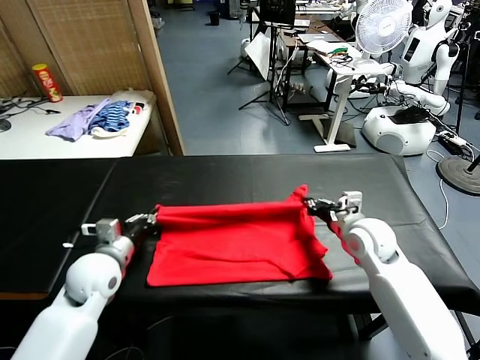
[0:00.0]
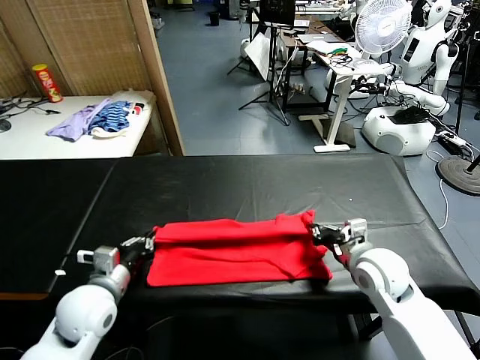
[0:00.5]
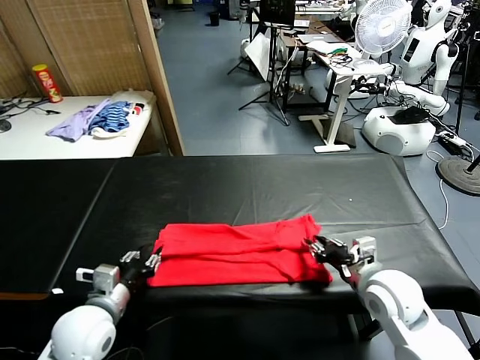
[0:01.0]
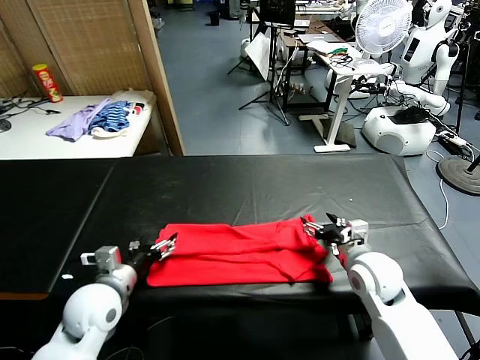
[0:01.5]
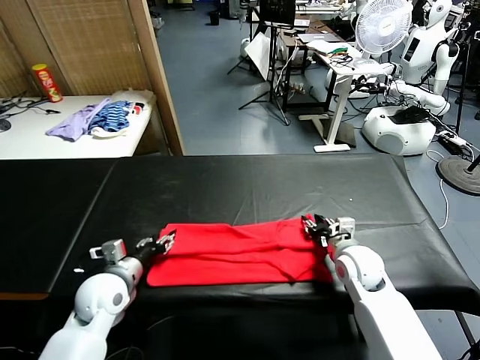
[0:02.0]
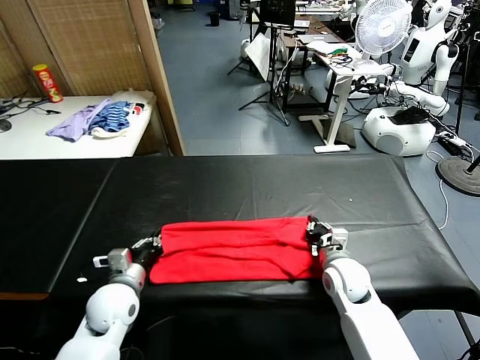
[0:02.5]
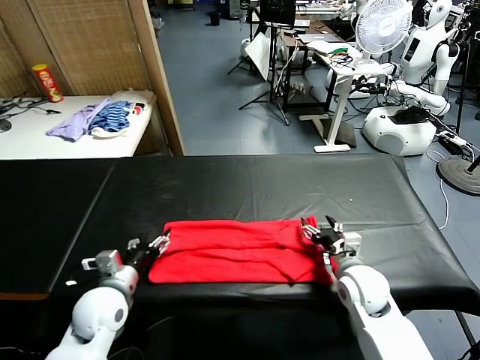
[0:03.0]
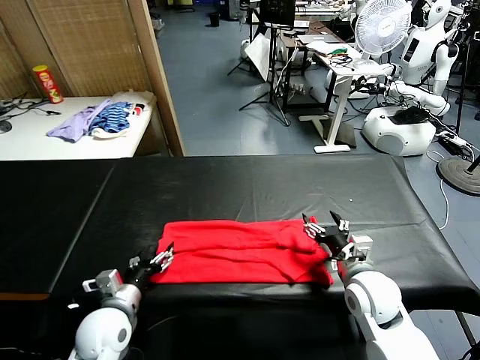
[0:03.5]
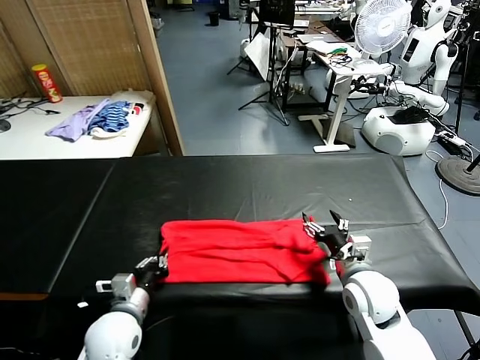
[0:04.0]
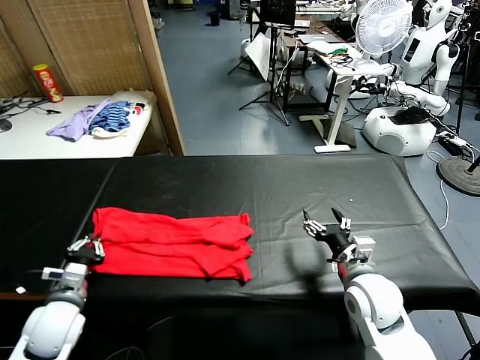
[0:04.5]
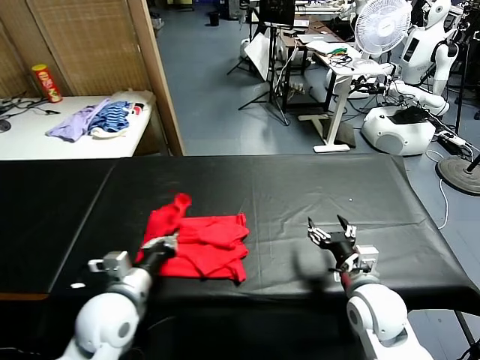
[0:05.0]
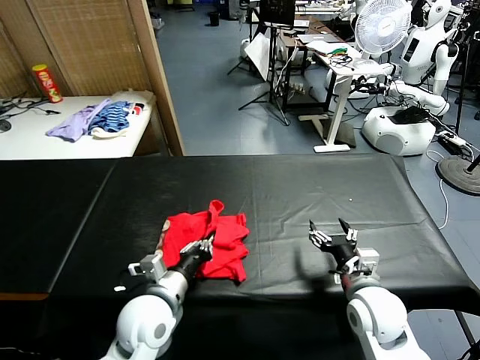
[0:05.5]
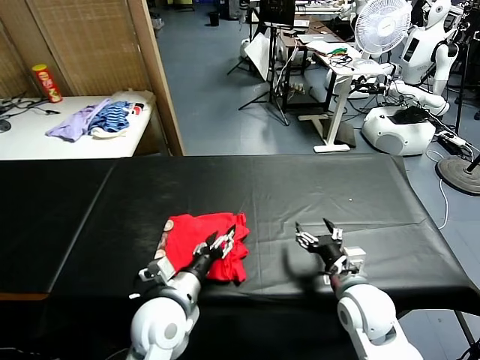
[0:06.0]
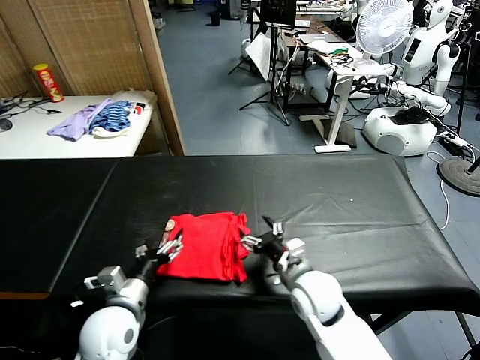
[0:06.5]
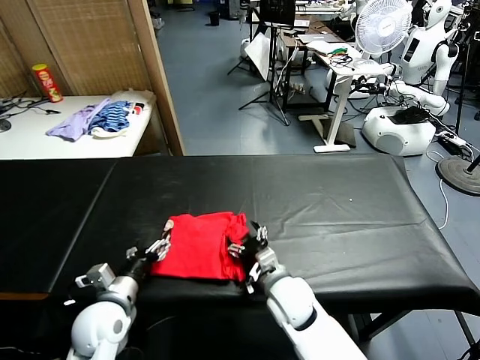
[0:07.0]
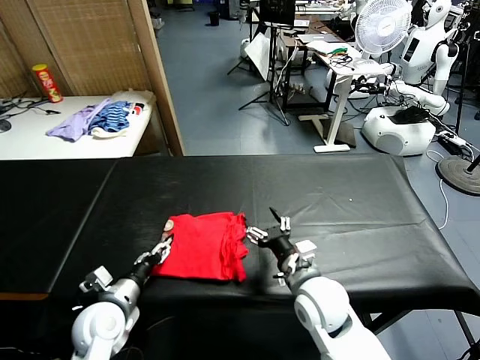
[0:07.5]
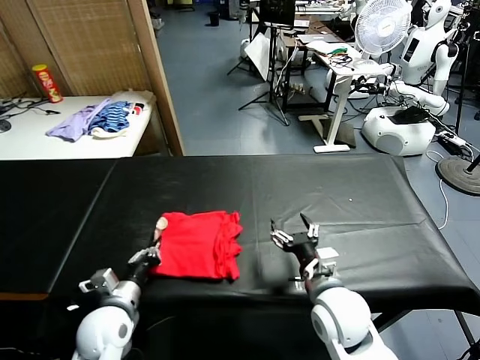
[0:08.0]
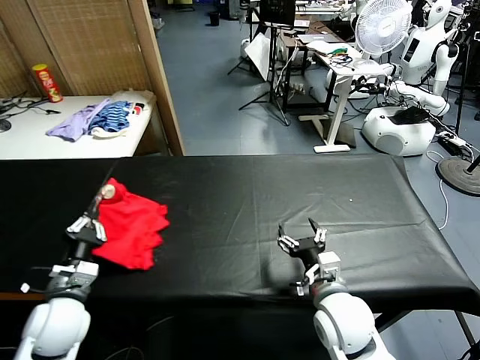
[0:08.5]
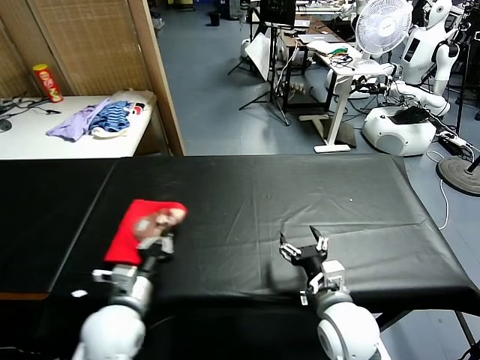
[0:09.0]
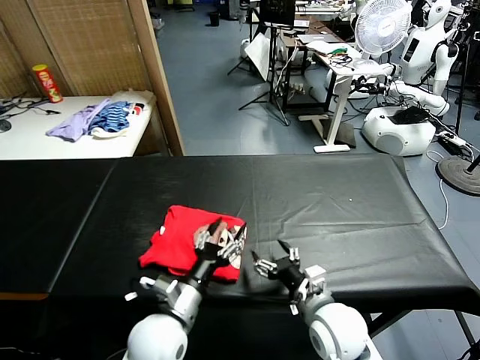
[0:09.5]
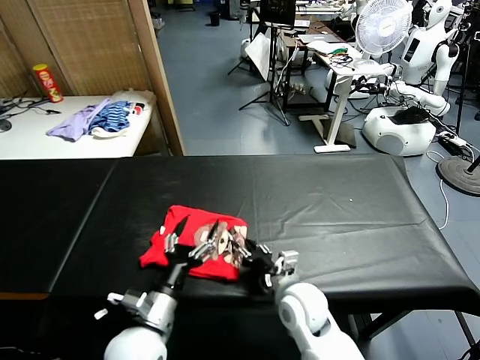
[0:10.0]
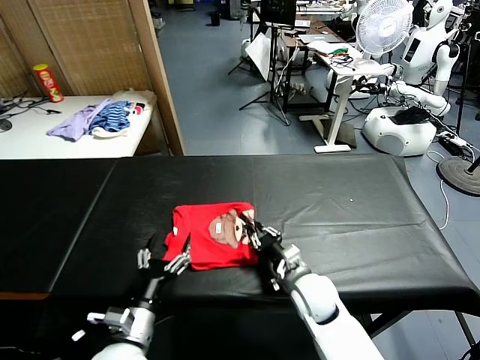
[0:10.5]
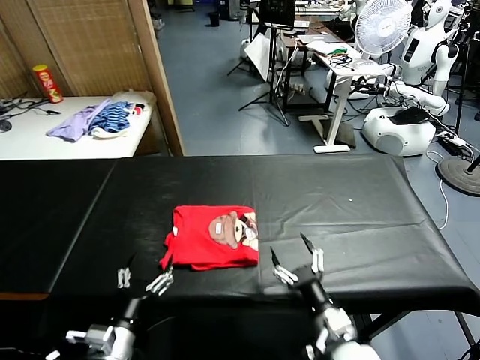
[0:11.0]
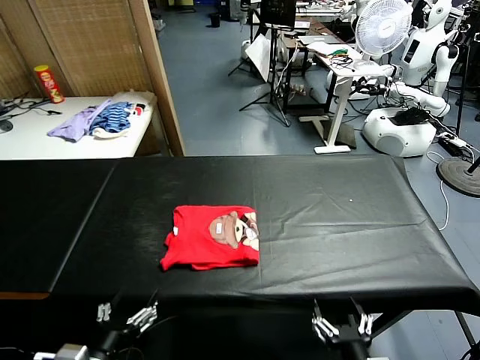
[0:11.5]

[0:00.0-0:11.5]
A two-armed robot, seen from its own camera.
Task of the whole recording: fold and organize the clothes.
Step, 0:00.0 to 0:01.0: use both grippers to drag the upper edge of the fabric backward and fold it over the lower edge.
Step, 0:01.5 to 0:03.5: use the left gripper to clamp the left edge of the fabric.
Step, 0:04.0 to 0:06.0: use the left gripper to drag the left edge of the fabric to the left and folds it over the right edge.
Step, 0:06.5 to 0:09.5: Flip the folded clothes over with left gripper.
Step, 0:10.0 to 0:10.5: Drag the clothes to the center of the table.
0:00.0 to 0:02.0: The left gripper goes backward and returns, some 10 cm each way, and opens; the right gripper shifts some 10 cm downward, moves about 10 cm backward and comes back, and opens and closes again.
0:02.0 to 0:04.0: The grippers both shift backward by roughly 5 cm. The right gripper opens its fingers. Meanwhile the left gripper closes its fingers.
0:04.0 to 0:06.0: The left gripper is displaced to the right and upward by about 10 cm, and opens its fingers.
0:06.0 to 0:07.5: The left gripper is displaced to the left by about 15 cm; the right gripper goes about 10 cm to the left.
0:07.5 to 0:09.5: The left gripper is displaced to the right by roughly 15 cm, and closes, then opens again, while the right gripper moves approximately 5 cm.
0:09.5 to 0:11.5: The left gripper is displaced backward and to the left by some 20 cm. Meanwhile the right gripper moves backward, about 15 cm, and closes, then opens again.

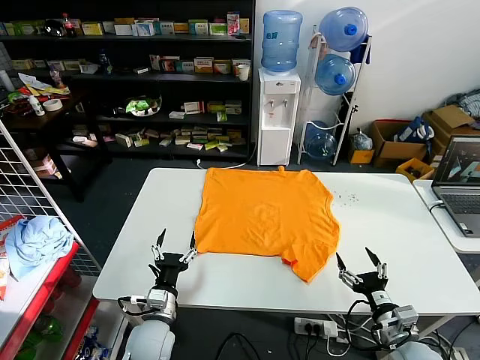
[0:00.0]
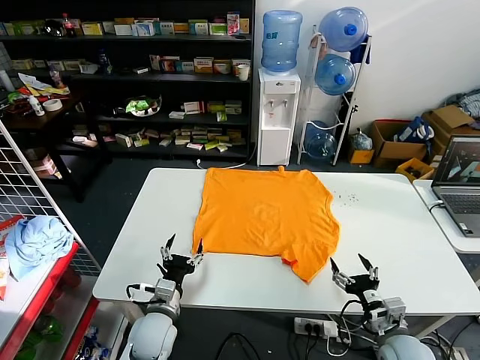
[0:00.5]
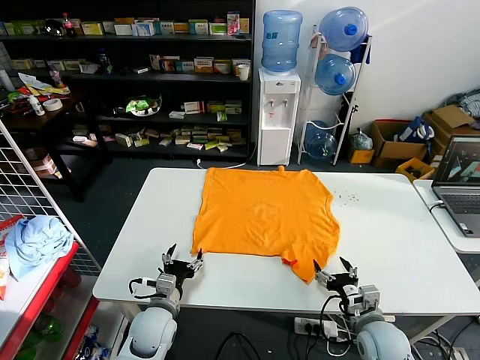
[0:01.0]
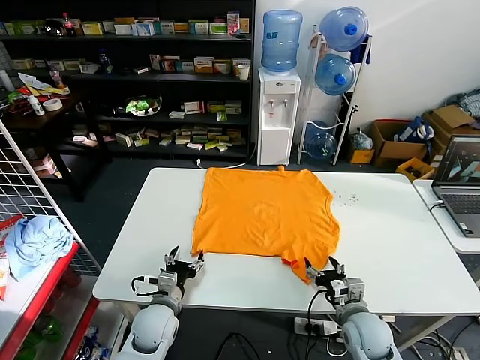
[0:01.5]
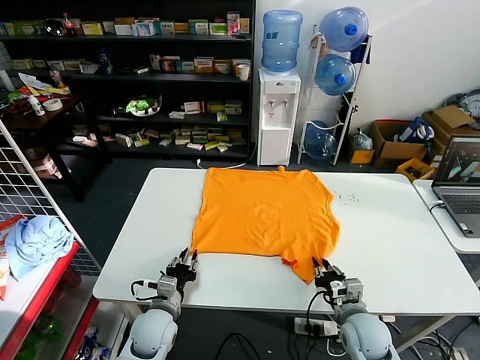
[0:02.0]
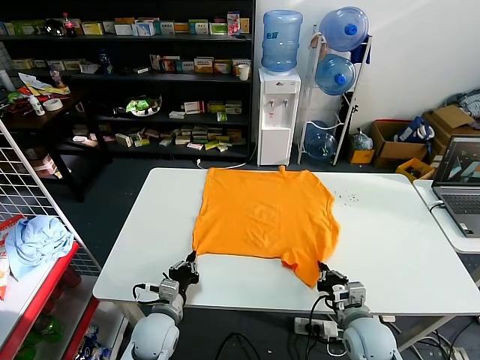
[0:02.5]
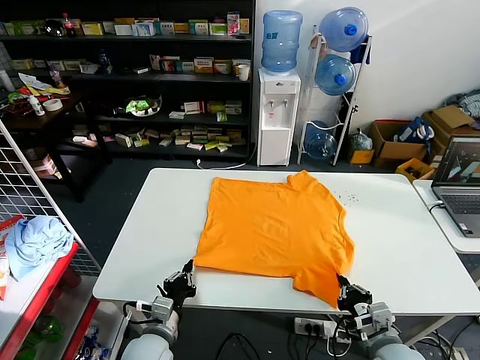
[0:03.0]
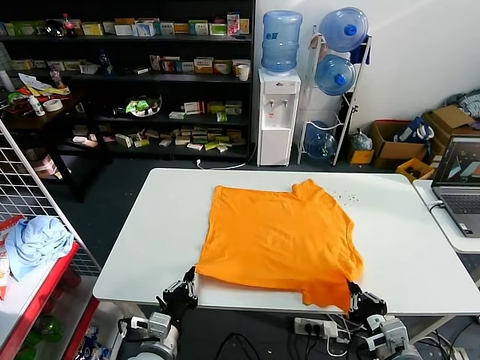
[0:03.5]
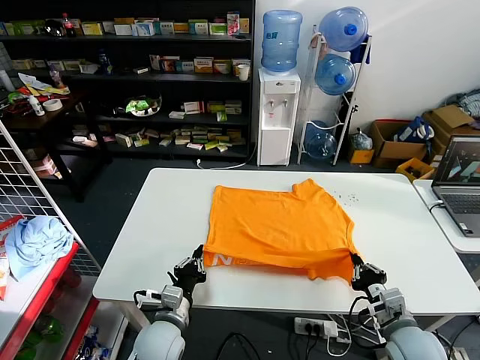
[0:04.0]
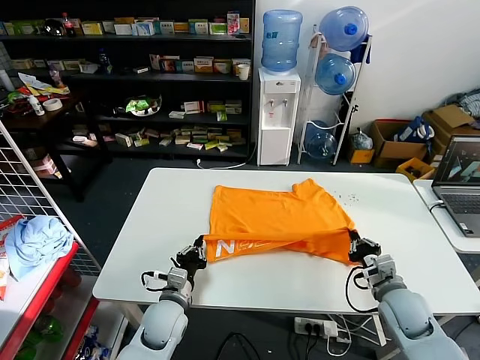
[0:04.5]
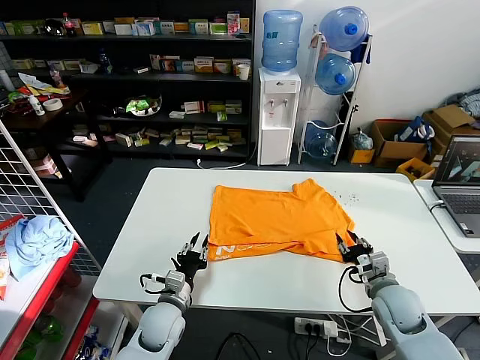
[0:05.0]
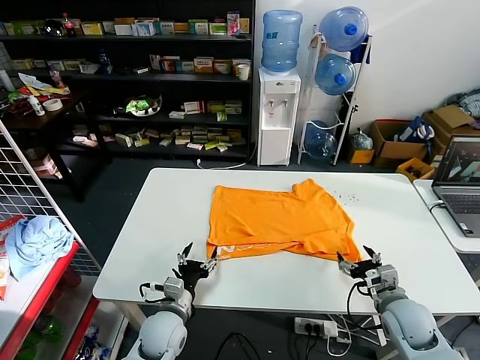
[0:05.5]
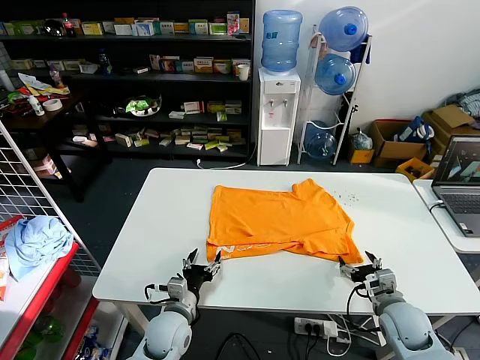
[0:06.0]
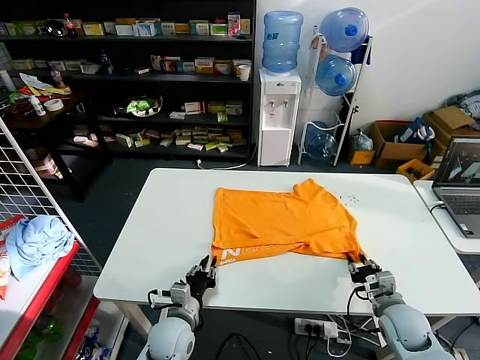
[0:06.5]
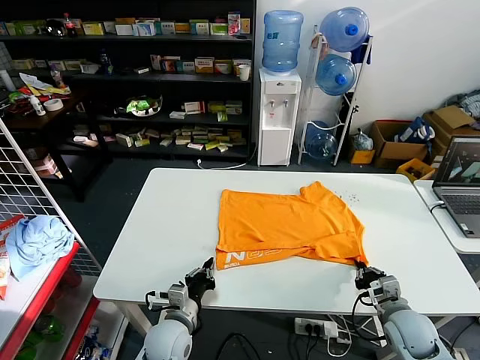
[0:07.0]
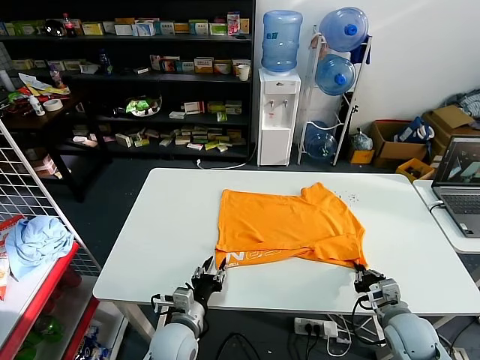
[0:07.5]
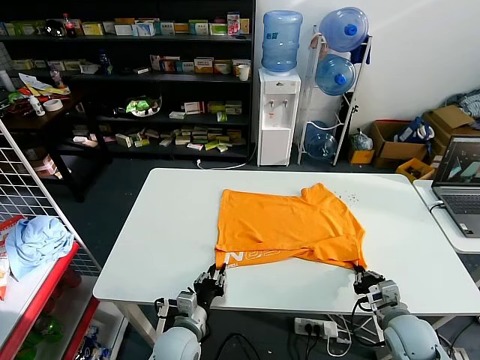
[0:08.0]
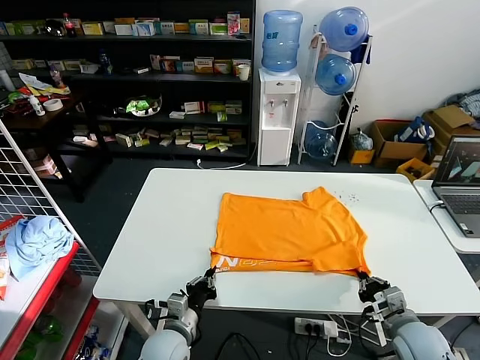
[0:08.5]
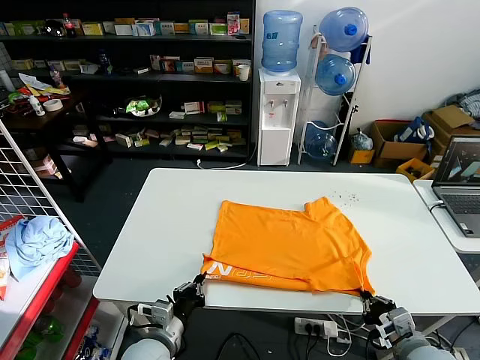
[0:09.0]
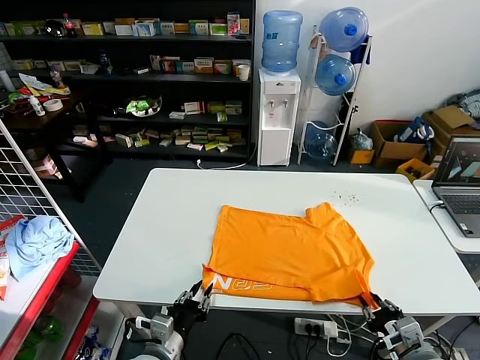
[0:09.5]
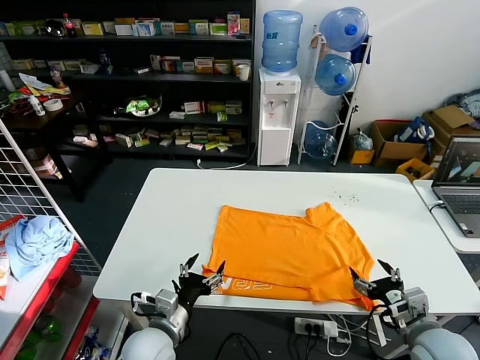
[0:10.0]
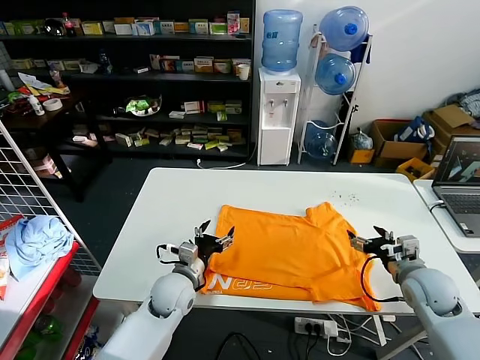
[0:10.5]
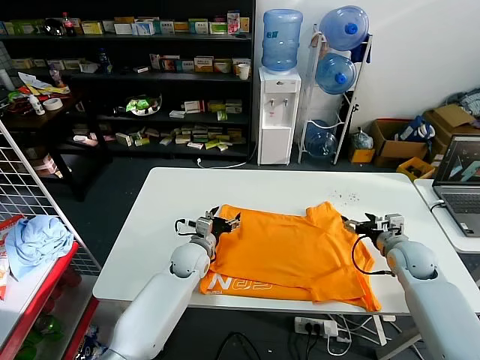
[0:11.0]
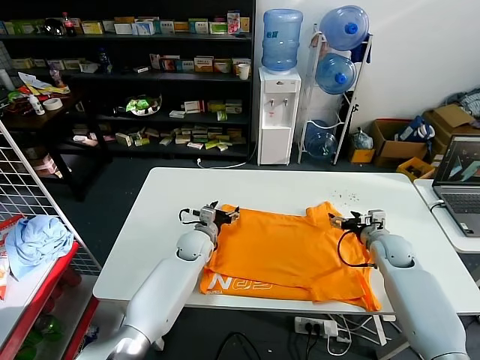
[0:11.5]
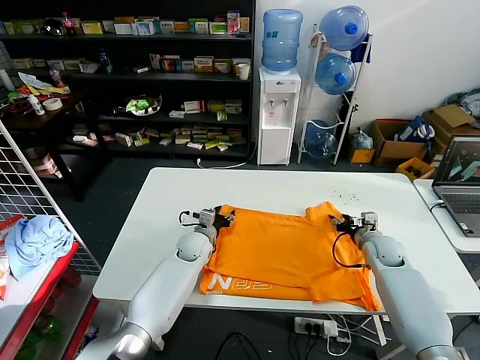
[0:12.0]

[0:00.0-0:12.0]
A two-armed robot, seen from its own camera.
Task of the whole recording: fold and organize the clothes.
Step, 0:00.0 to 0:02.5: use both grippers simultaneously to clamp the lower edge of the clothing fabric.
Step, 0:03.0 to 0:05.0: use both grippers to drag the lower edge of the fabric forward and fold it over the upper edge.
Step, 0:05.5 to 0:10.0: Drag the clothes downward with both gripper.
0:02.0 to 0:04.0: The left gripper closes, while the right gripper goes about 10 cm to the right and upward, and moves some 10 cm backward and comes back.
0:04.0 to 0:06.0: The left gripper opens its fingers. Meanwhile the right gripper changes place by roughly 5 cm, and opens up.
0:06.0 to 0:08.0: The right gripper closes. Meanwhile the left gripper closes up.
0:08.0 to 0:10.0: The two grippers go some 10 cm upward. The right gripper opens its fingers; the left gripper opens.
0:10.0 to 0:12.0: Both grippers travel together forward, about 25 cm. The right gripper closes up.

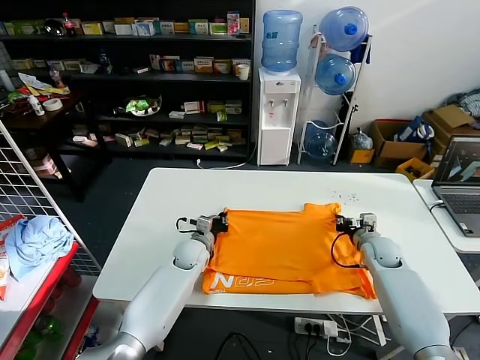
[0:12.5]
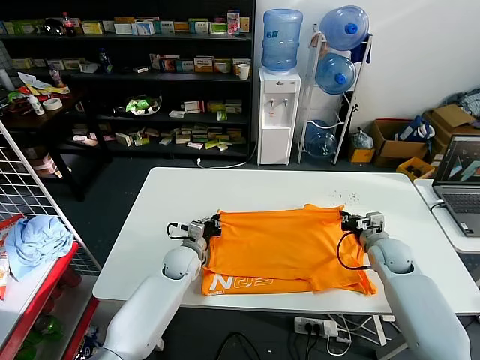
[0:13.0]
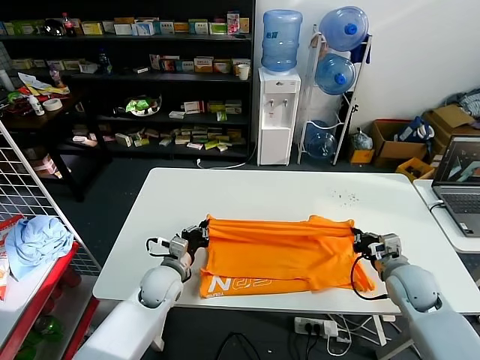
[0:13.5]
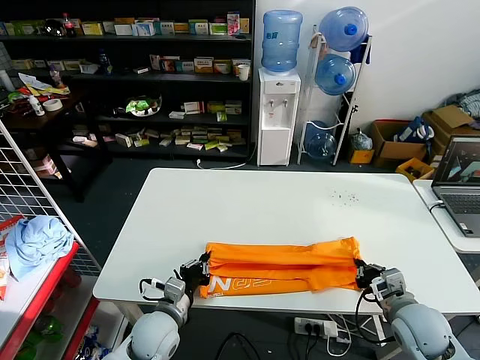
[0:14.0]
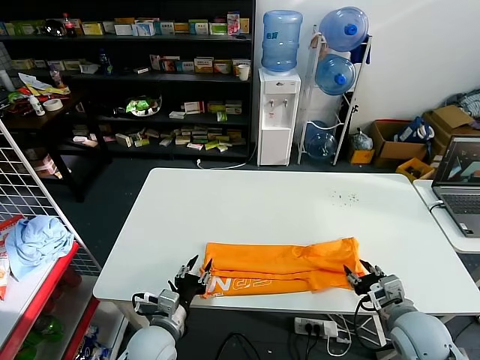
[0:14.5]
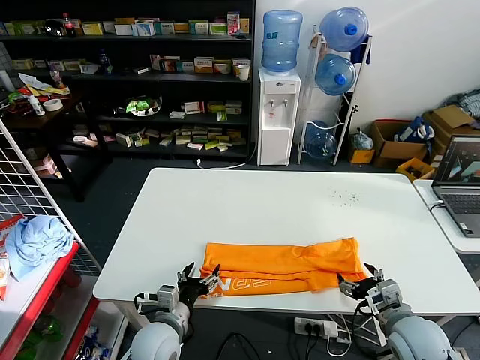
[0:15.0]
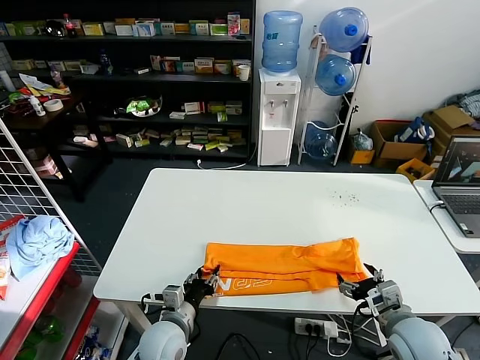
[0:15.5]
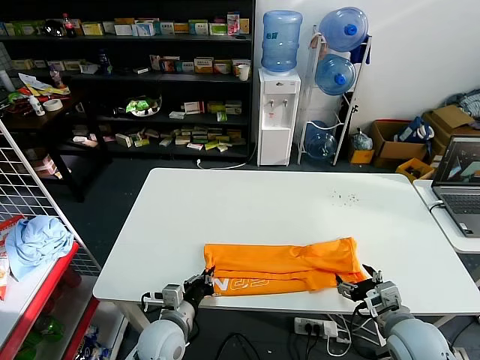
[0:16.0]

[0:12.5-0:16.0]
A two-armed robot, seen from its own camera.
Task of the whole recording: fold and organize the clothes.
Step, 0:13.0 to 0:14.5: use both grippers to drag the upper edge of the fabric backward and fold it over the lower edge.
Step, 0:15.0 to 0:16.0: use the left gripper to clamp the left edge of the fabric.
0:12.5 to 0:14.5: The two grippers go about 25 cm backward. The left gripper opens up; the right gripper opens up.
0:14.5 to 0:16.0: The left gripper closes, while the right gripper opens up.
